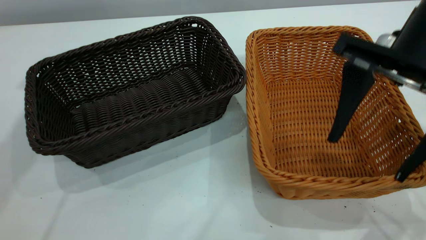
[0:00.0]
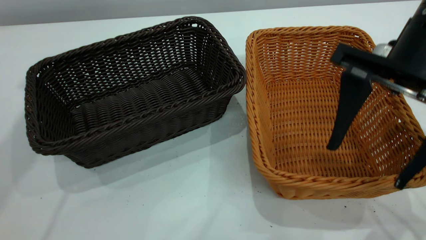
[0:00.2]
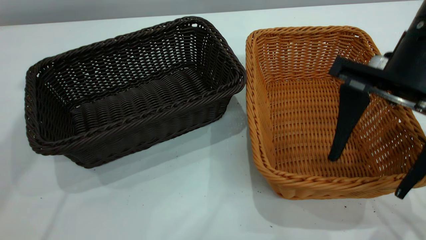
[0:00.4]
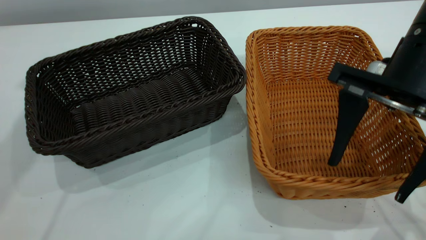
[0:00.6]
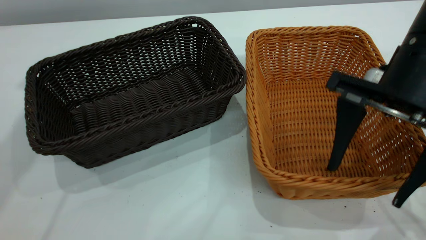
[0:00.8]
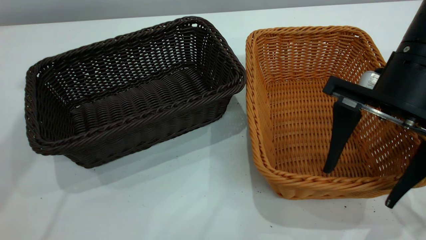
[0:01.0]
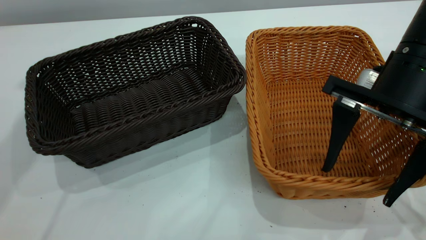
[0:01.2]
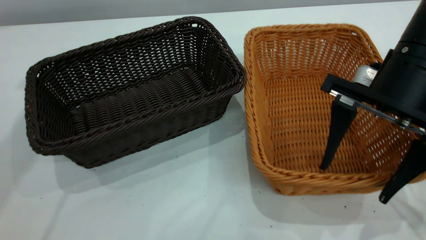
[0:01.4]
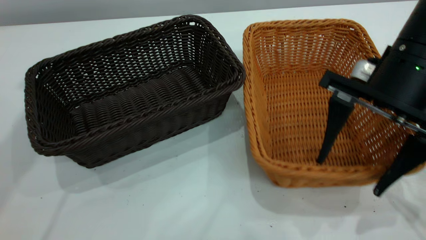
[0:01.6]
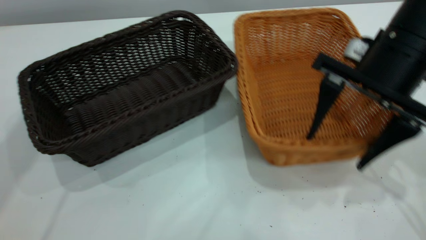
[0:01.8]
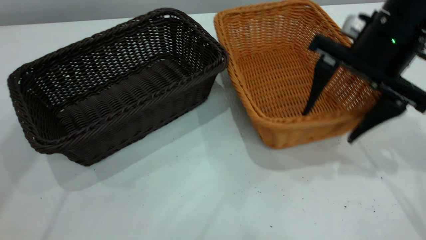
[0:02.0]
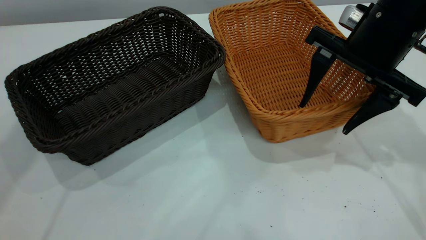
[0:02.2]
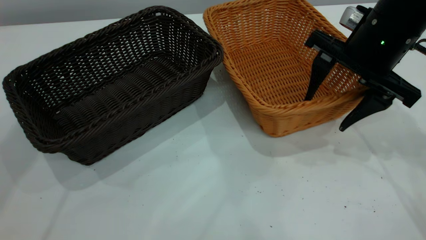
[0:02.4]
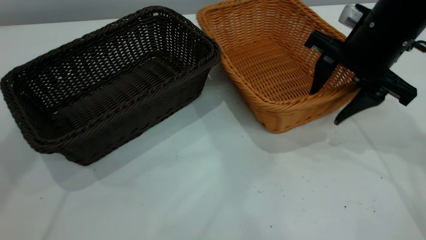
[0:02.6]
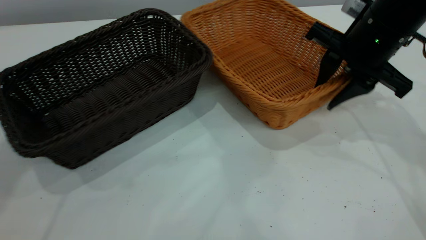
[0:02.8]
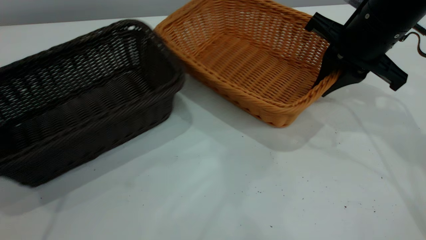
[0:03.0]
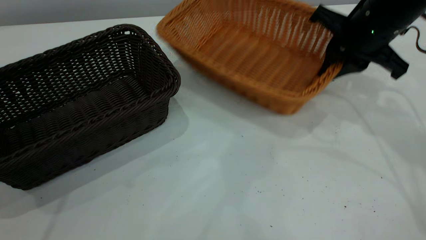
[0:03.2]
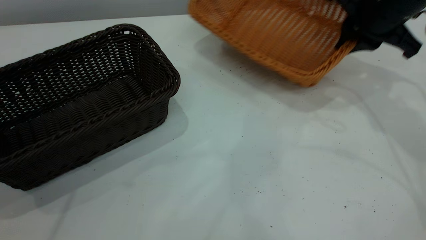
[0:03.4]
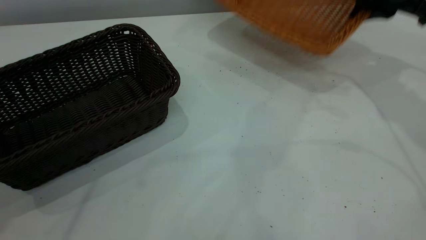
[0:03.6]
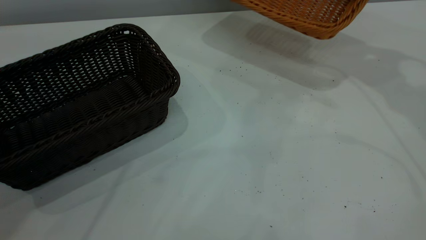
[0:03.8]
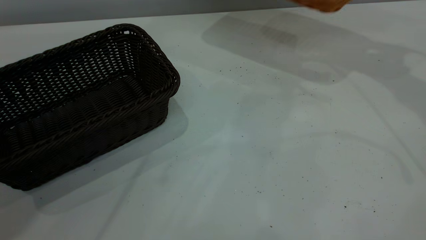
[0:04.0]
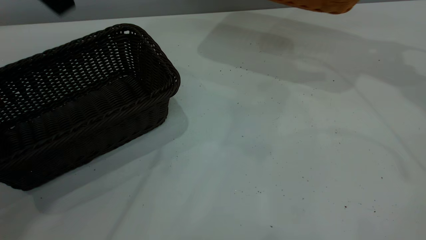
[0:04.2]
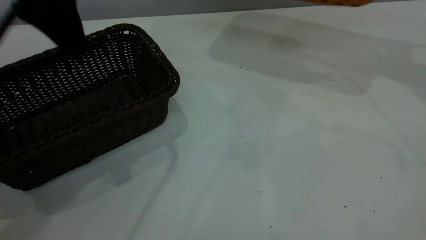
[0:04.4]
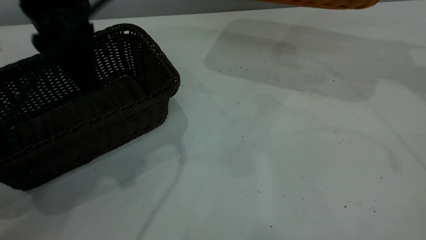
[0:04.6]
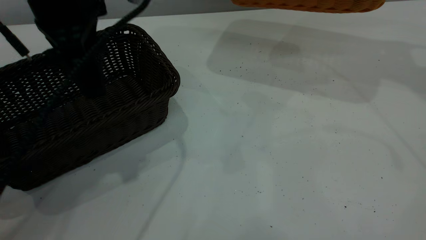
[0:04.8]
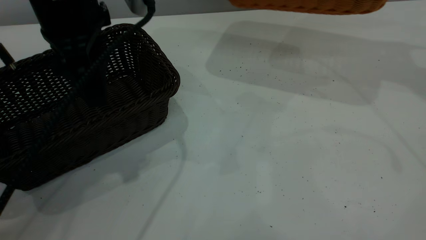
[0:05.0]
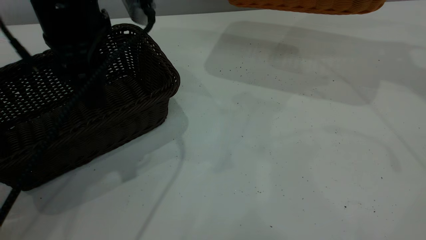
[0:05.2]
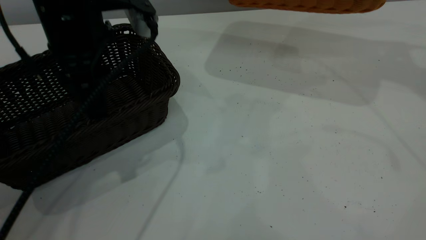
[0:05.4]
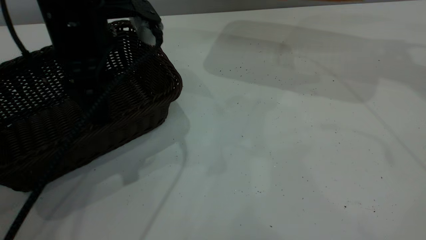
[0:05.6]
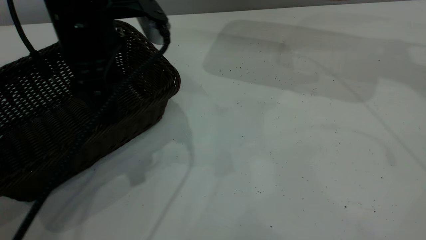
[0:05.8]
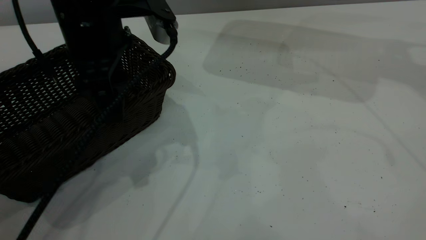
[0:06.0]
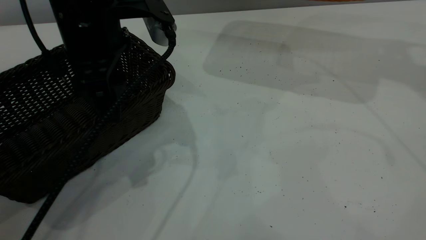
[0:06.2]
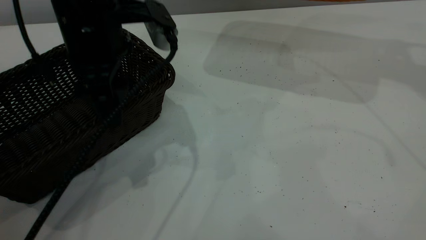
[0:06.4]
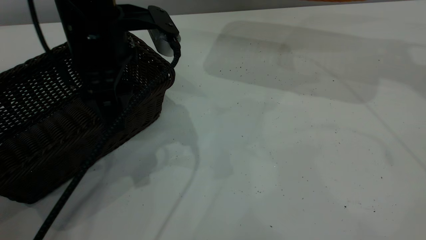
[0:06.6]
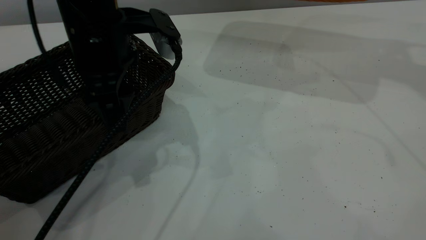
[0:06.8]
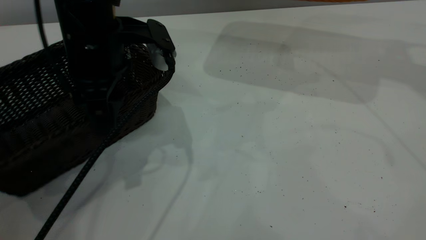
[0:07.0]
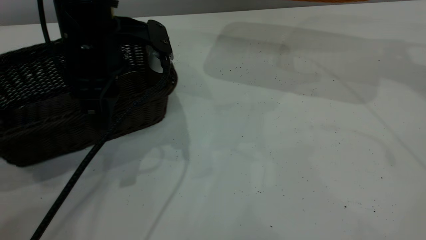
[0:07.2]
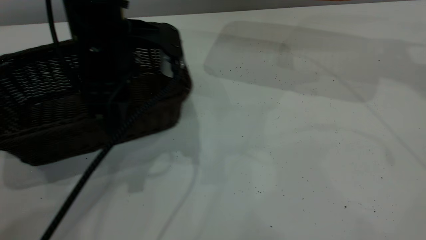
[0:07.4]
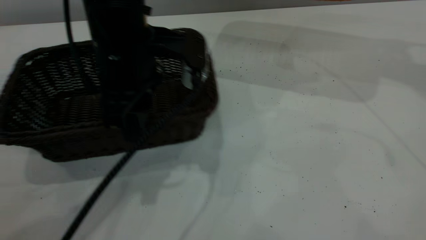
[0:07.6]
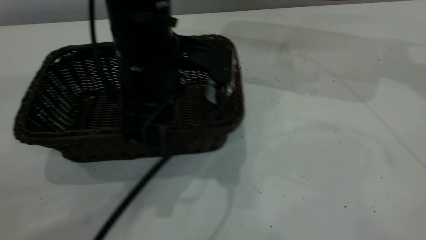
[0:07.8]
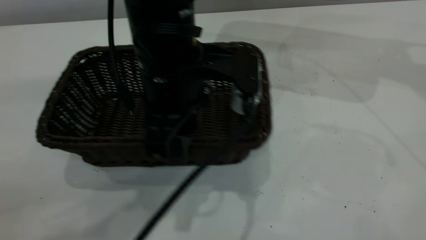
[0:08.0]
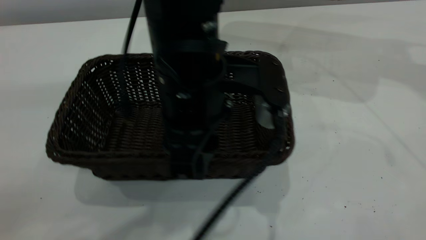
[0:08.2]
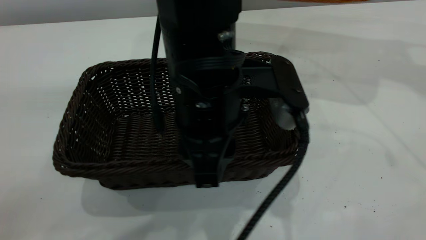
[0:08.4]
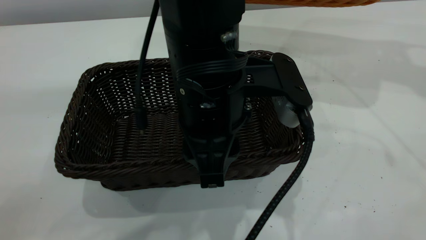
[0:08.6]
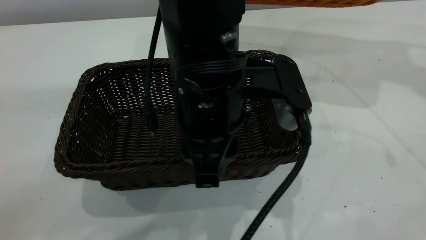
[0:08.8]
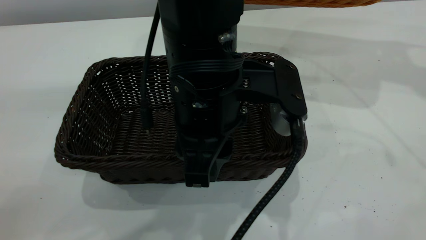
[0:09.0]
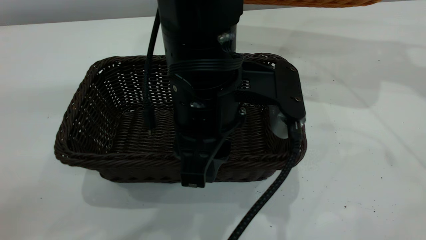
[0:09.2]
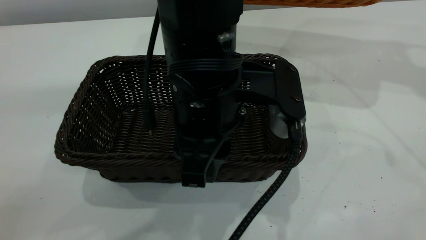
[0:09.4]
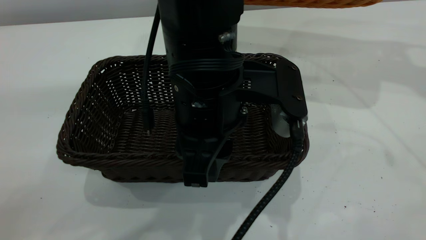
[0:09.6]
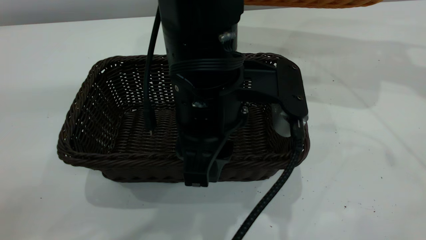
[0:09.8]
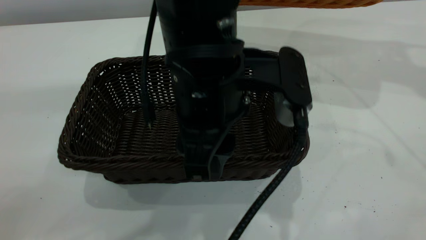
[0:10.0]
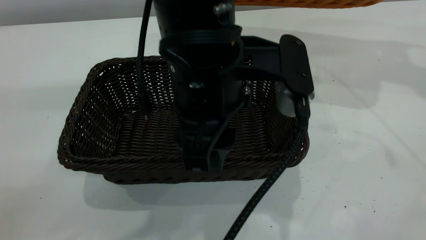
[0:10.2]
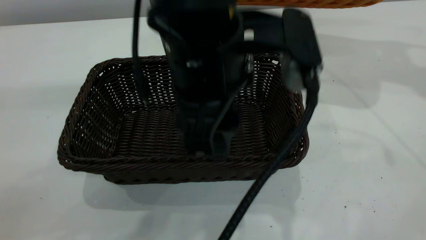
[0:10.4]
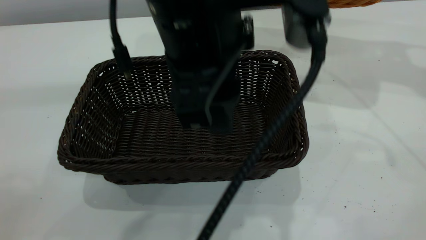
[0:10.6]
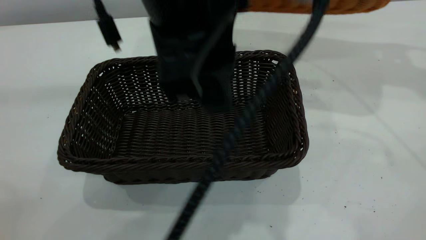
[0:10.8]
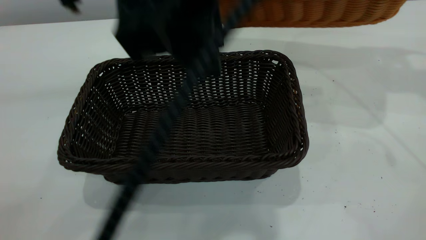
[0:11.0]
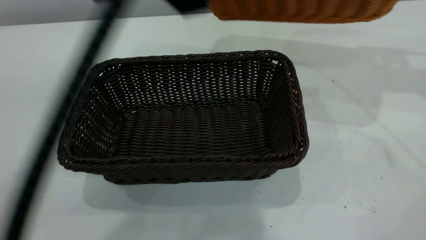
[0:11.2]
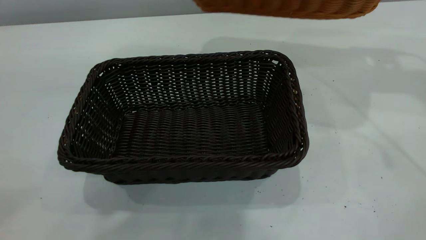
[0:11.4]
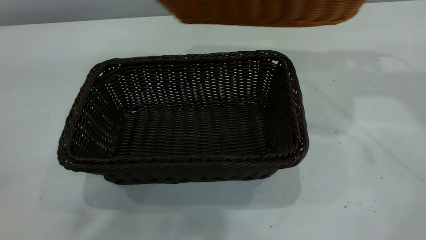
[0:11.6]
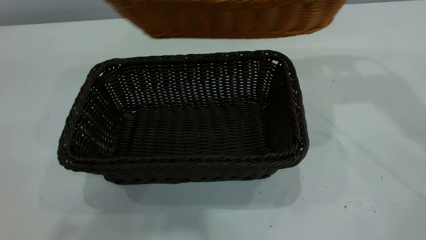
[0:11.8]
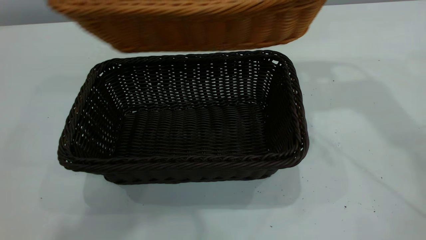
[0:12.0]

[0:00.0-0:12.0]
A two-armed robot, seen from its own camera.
Task of the whole recording: the left gripper grasp the black basket and place it in the center of the table, the right gripper grasp the brown basket and place it inside the black one.
Step, 0:00.0 to 0:03.2: Pick up the light basket with the right gripper.
Step, 0:03.6 to 0:10.6: Move the dark basket to the center of view.
0:00.0 to 0:01.6: The right gripper moves approximately 5 cm.
0:01.6 to 0:03.0: The right gripper shifts approximately 10 cm forward, and closes.
0:03.0 to 0:04.4: The right gripper travels upward, to the right and forward by some 20 cm, while the left gripper moves downward, to the right and backward, some 20 cm.
0:04.4 to 0:06.0: The left gripper moves downward, approximately 10 cm.
0:06.0 to 0:07.6: The left gripper changes place by approximately 5 cm, and closes.
0:07.6 to 0:09.0: The left gripper travels to the right and backward by approximately 10 cm.
0:09.0 to 0:10.4: The left gripper travels upward by approximately 5 cm, and opens.
0:10.4 to 0:12.0: The left gripper heads upward and to the left, covering approximately 25 cm, and closes its fingers; the right gripper shifts some 15 cm to the left.

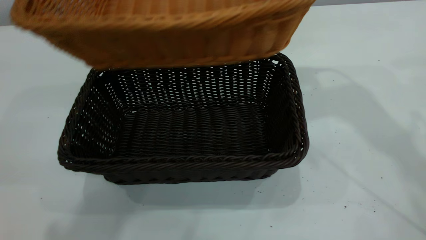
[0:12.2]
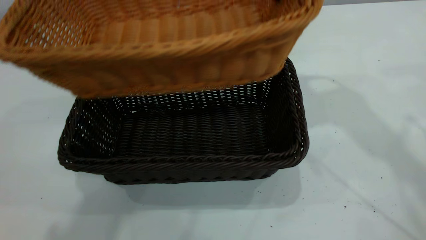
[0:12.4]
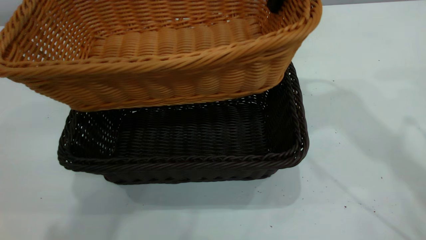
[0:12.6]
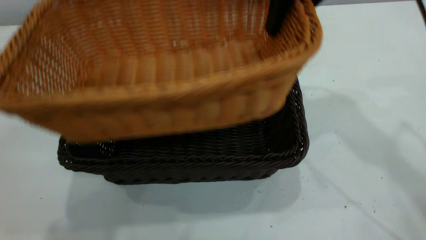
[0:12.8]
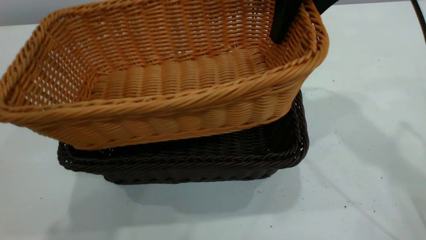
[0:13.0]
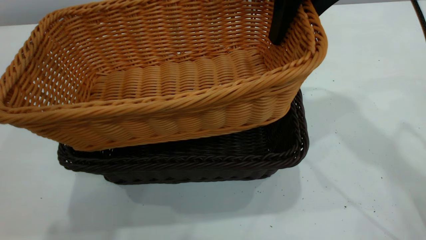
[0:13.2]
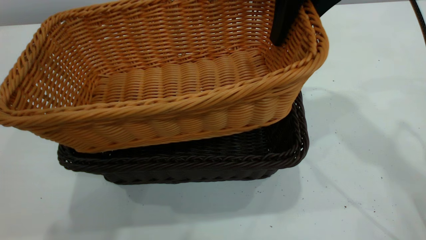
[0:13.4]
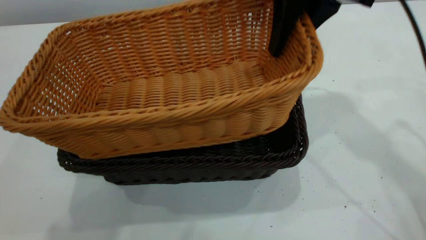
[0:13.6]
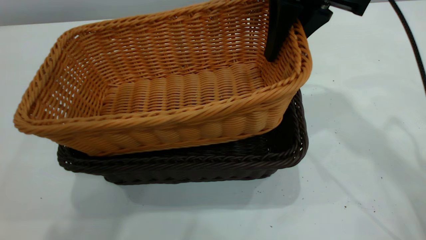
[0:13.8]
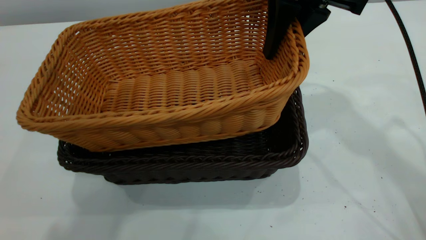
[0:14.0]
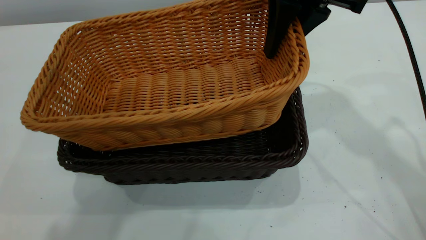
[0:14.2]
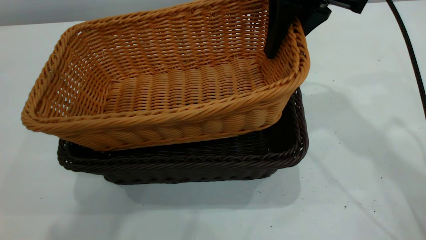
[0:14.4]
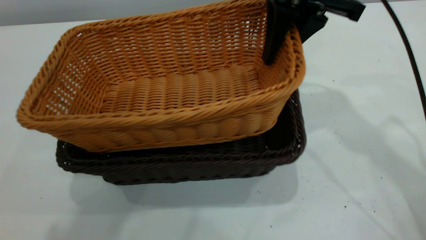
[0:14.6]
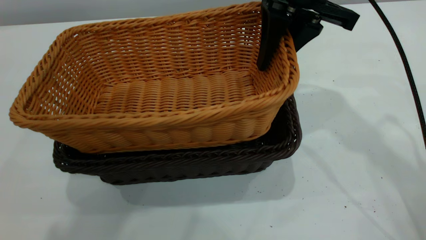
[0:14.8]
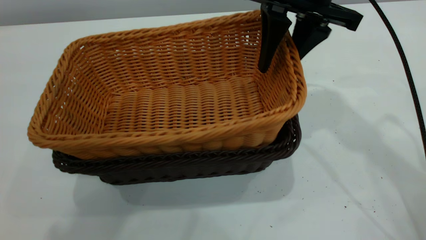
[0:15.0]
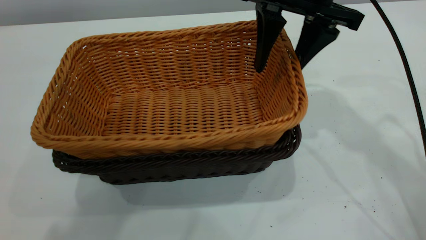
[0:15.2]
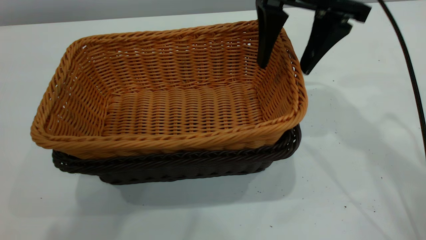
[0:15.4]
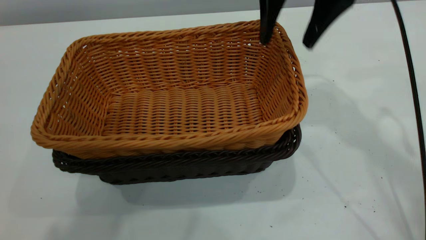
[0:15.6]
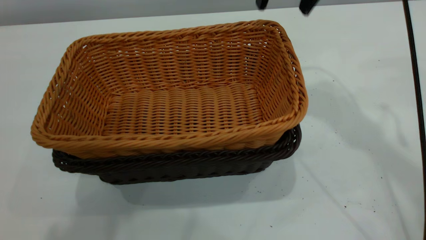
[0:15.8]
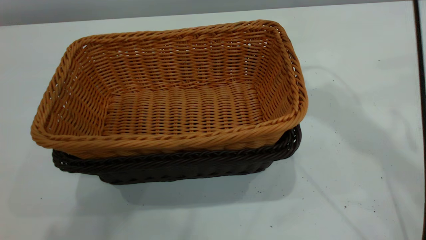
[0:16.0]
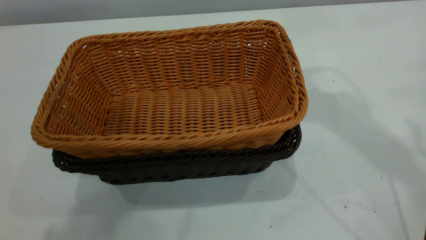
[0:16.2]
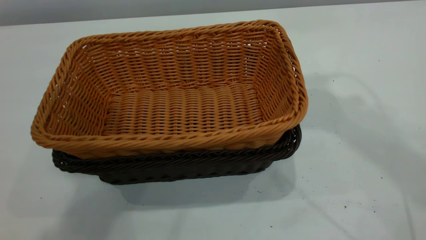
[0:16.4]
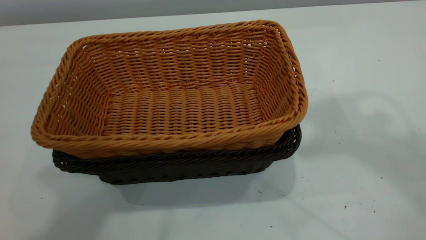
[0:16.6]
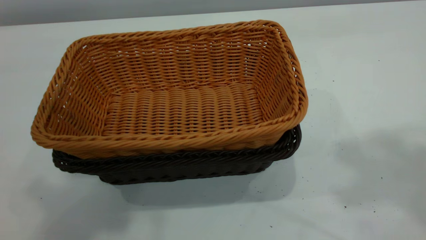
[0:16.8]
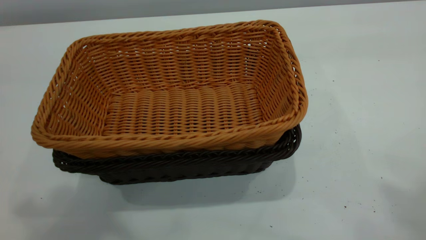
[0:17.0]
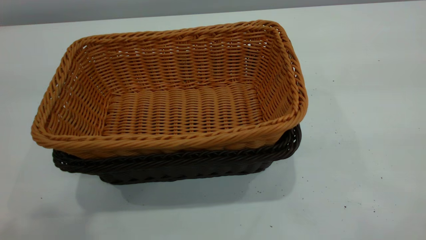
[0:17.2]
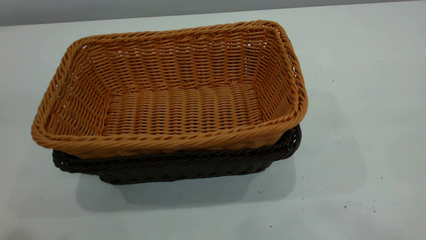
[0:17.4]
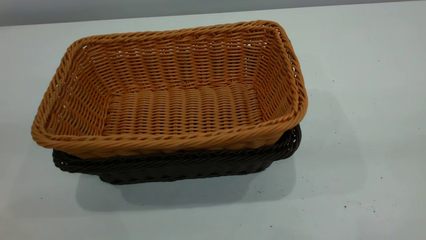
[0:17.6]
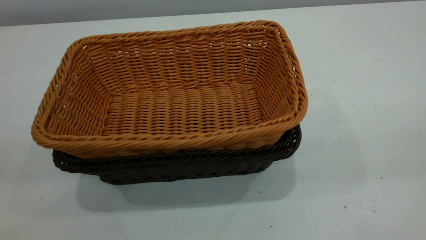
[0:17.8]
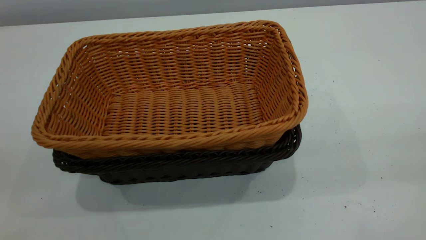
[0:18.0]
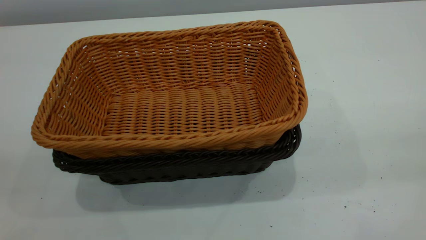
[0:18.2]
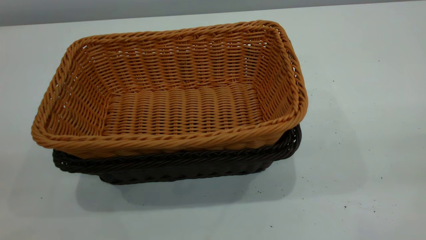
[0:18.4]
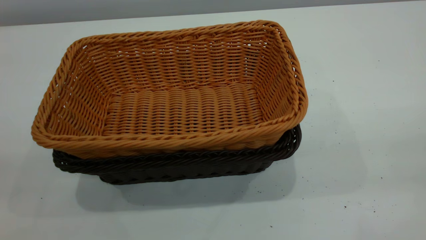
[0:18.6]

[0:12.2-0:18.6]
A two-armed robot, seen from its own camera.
Task of the whole recording: the left gripper grasp the black basket and place it in the center of the table, the right gripper grasp the brown basket and place it inside the black one.
Step, 0:12.2 to 0:15.4: Place the light basket on the dark basket.
0:12.2 to 0:13.8: The right gripper heads downward, covering roughly 5 cm.
0:13.8 to 0:15.4: The right gripper opens up.
0:15.4 to 0:17.0: The left gripper travels backward and to the left by roughly 10 cm. The right gripper shifts about 35 cm upward, backward and to the right, and closes up.
0:17.0 to 0:18.6: The left gripper is displaced downward, backward and to the left by roughly 20 cm.
